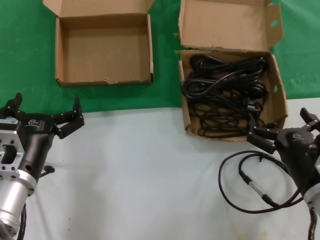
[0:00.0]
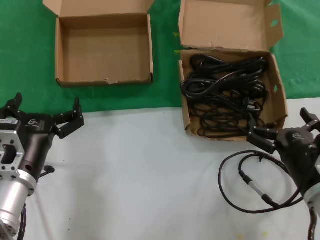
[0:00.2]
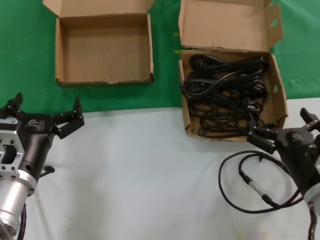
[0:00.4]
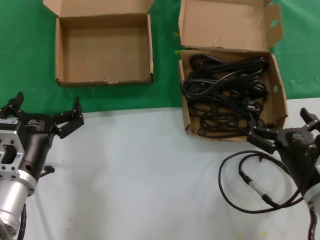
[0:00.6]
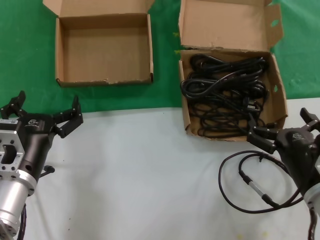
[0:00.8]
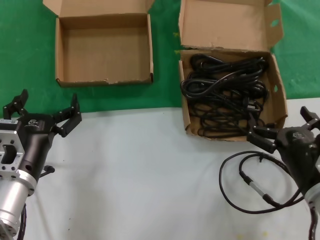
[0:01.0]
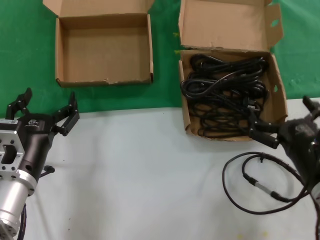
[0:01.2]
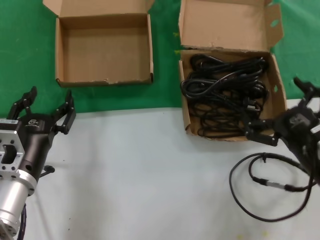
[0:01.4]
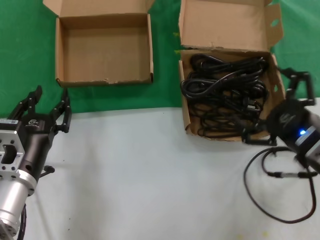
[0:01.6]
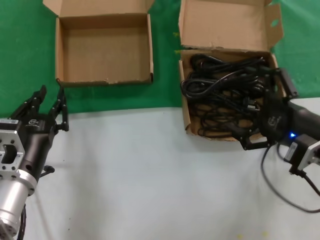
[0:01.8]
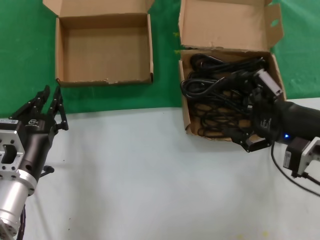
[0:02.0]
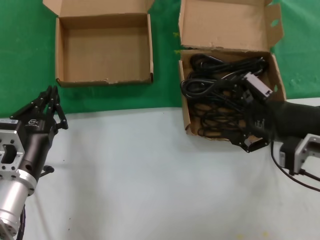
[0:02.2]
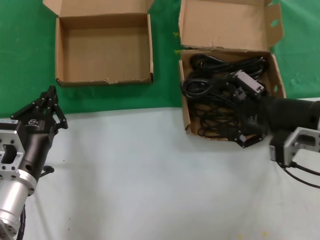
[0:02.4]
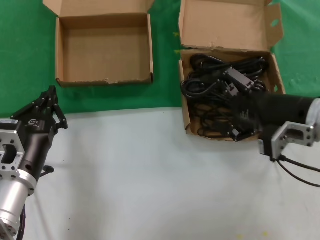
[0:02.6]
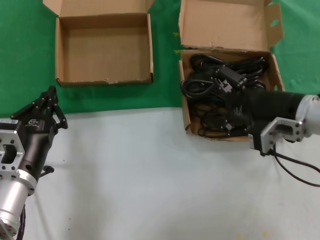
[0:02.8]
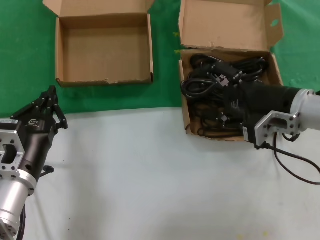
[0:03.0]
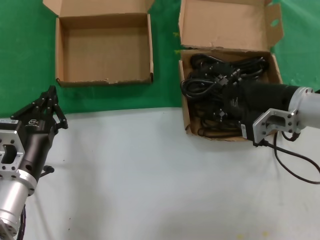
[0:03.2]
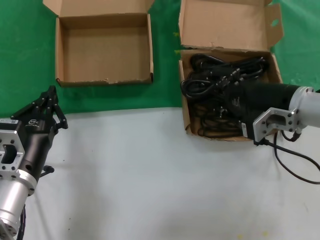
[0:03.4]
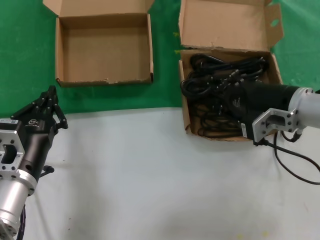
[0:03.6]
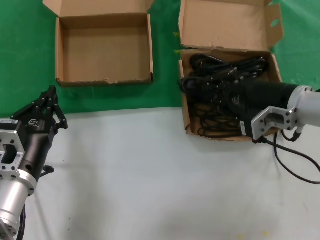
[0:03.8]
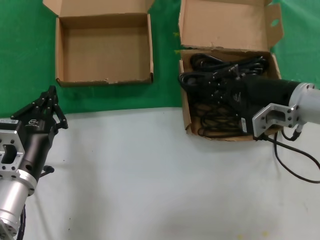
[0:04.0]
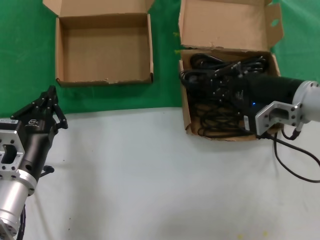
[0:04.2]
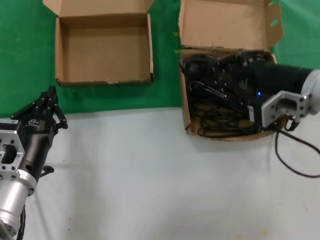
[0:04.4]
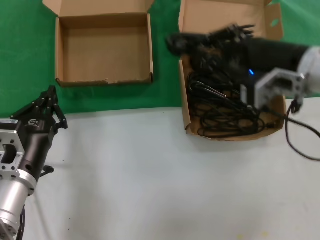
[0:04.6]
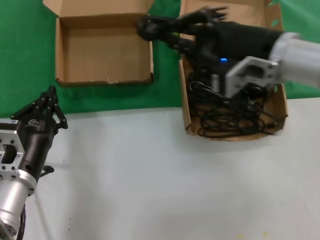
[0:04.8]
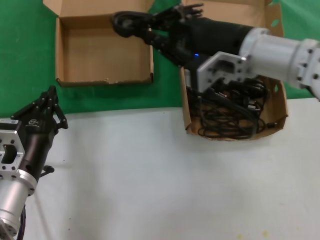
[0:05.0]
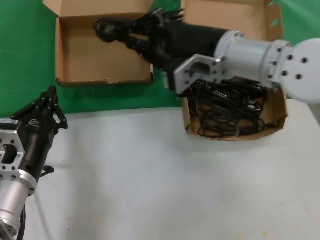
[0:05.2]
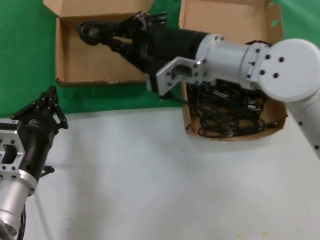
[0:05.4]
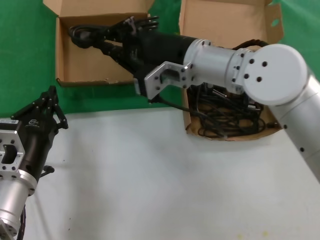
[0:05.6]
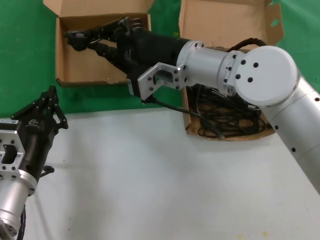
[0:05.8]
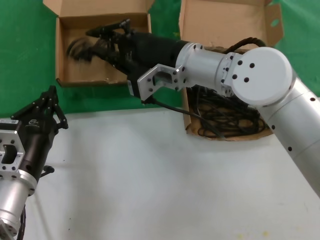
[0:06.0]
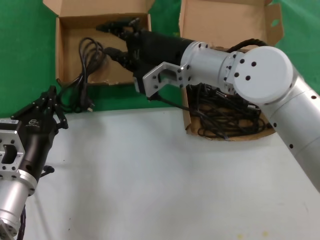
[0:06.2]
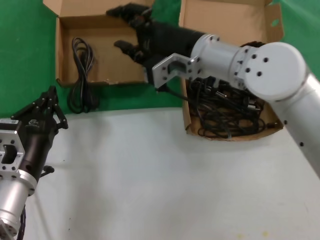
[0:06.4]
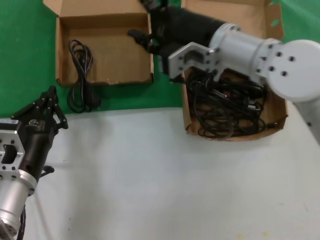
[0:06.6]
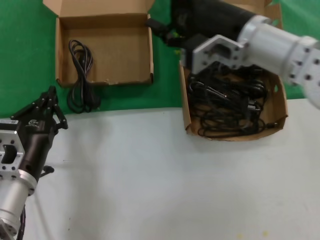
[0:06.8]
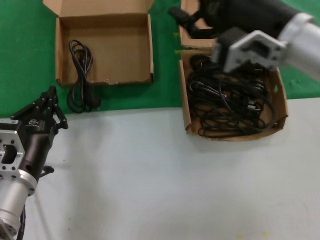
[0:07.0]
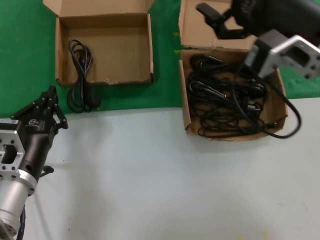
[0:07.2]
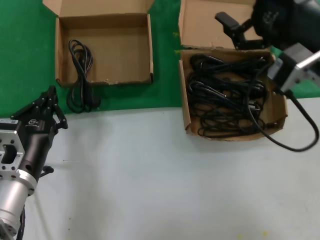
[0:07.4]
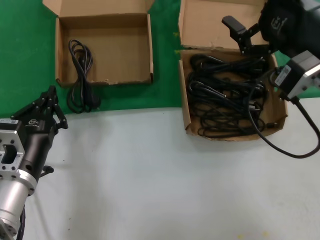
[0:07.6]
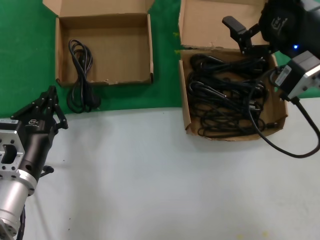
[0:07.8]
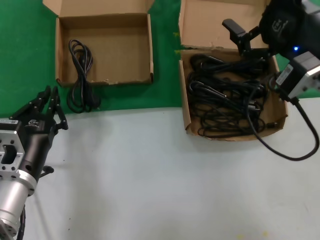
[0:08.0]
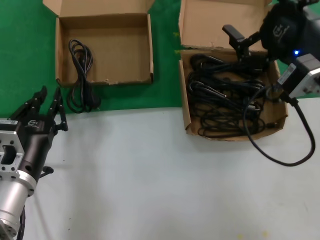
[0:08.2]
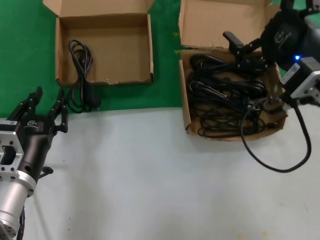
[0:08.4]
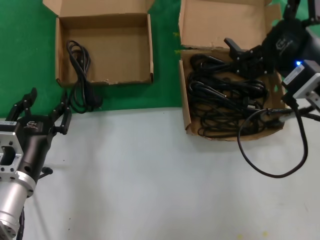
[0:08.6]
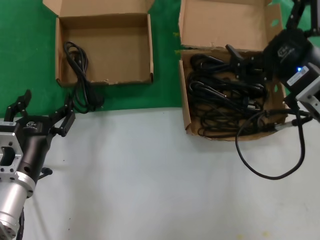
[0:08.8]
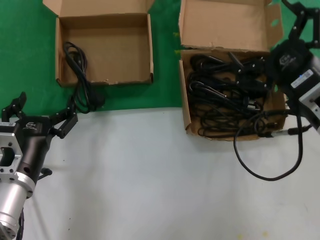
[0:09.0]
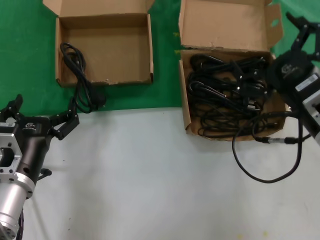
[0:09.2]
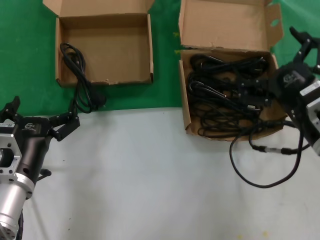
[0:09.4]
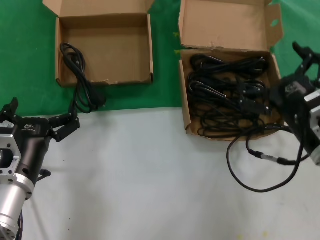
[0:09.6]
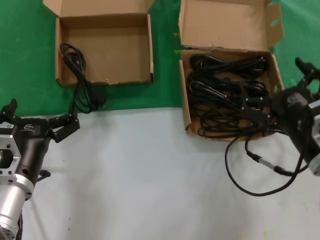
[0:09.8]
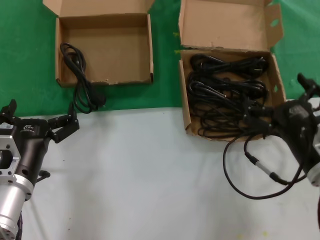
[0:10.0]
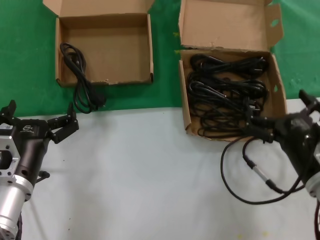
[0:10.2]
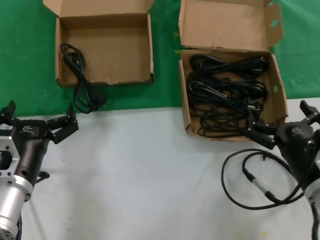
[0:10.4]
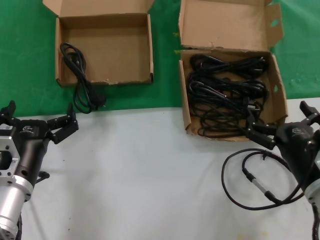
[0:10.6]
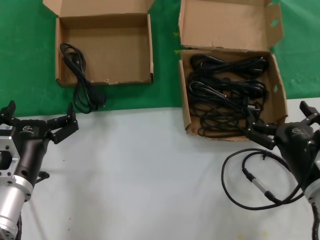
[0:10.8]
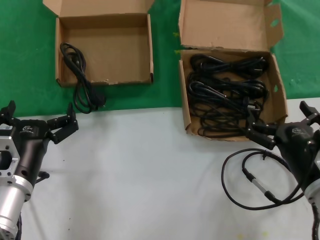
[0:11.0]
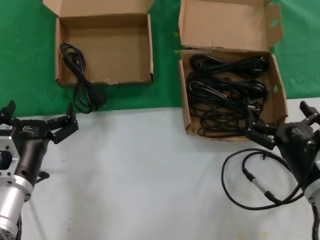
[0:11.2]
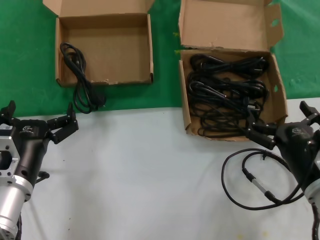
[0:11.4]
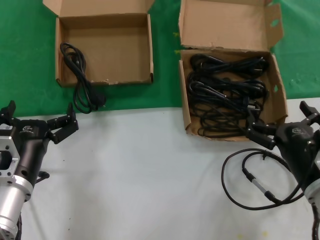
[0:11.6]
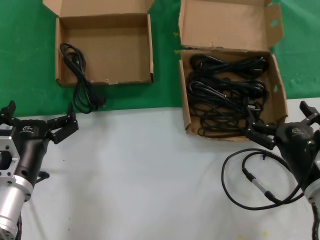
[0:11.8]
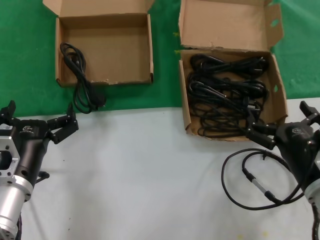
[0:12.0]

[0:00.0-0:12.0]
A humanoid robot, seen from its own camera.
Task of the whole recording: take the parts from the box containing them and put them into an empty box.
Step, 0.0 to 3.6 s: Grasp the data cable.
Step, 3.8 to 6.0 s: Place the data cable in the another box.
0.0 to 1.6 s: The right hand is displaced upward by approximately 5 cm.
1.6 to 3.0 s: The right hand heads forward and upward, covering roughly 15 cm.
3.0 to 4.4 s: The hands make only small movements.
4.4 to 6.0 s: The right hand travels to the left by about 20 cm.
6.0 to 7.6 s: The right hand heads to the right and backward, covering roughly 25 cm.
7.6 to 9.0 s: The right hand travels downward by approximately 10 cm.
9.0 to 10.4 s: The right hand travels downward by some 15 cm.
10.4 to 12.0 s: Neither hand changes place.

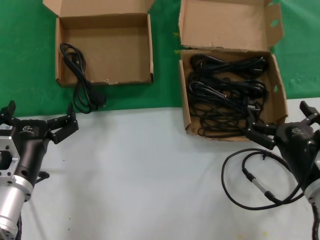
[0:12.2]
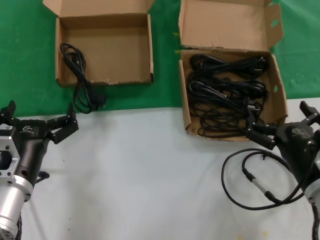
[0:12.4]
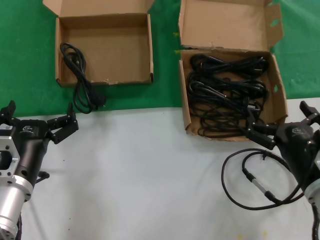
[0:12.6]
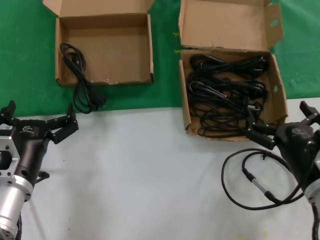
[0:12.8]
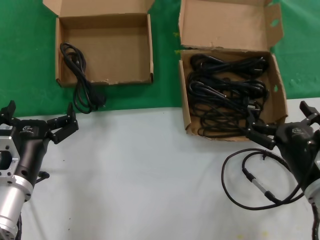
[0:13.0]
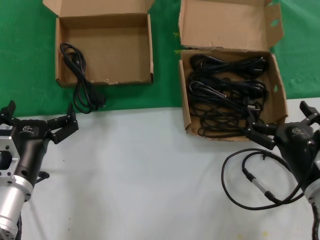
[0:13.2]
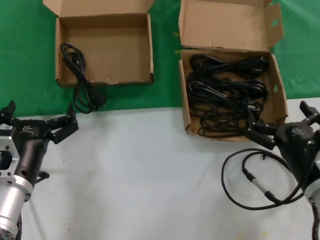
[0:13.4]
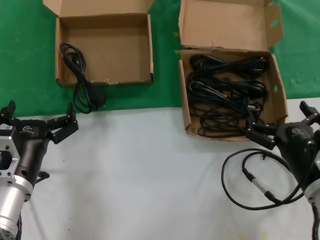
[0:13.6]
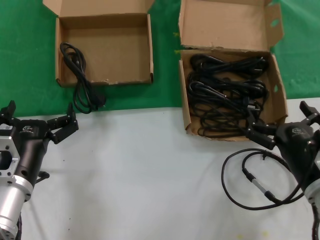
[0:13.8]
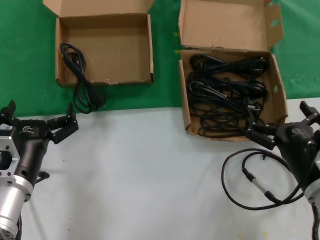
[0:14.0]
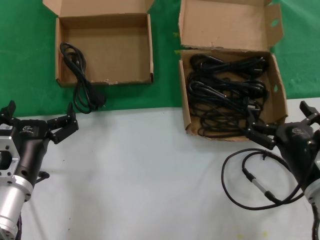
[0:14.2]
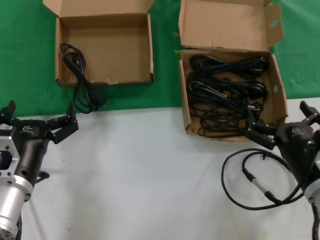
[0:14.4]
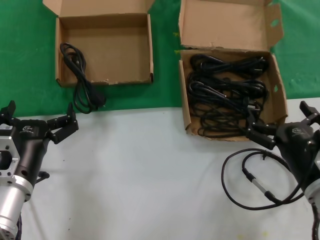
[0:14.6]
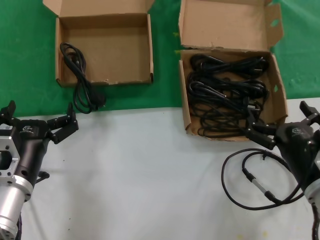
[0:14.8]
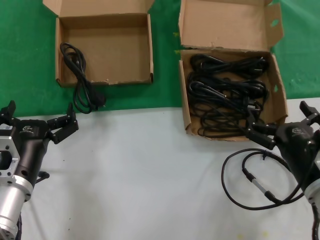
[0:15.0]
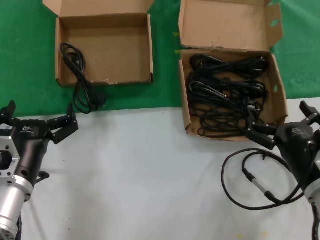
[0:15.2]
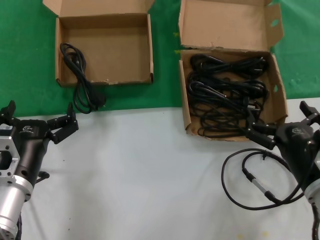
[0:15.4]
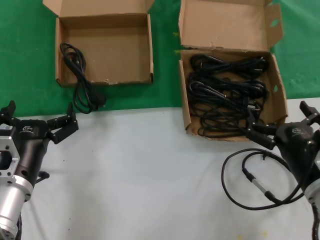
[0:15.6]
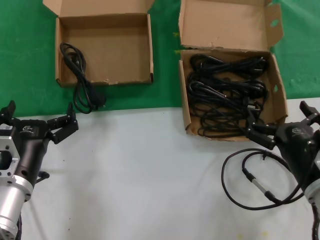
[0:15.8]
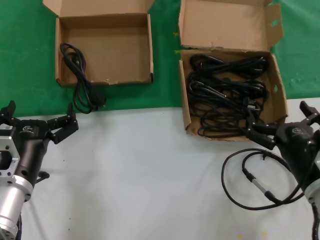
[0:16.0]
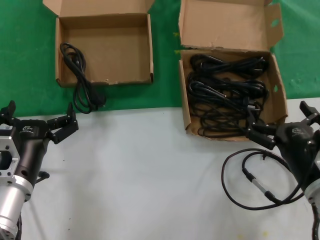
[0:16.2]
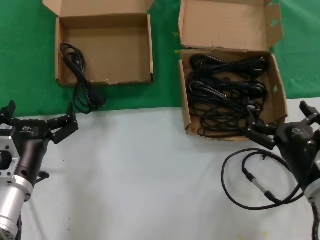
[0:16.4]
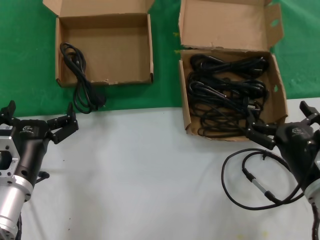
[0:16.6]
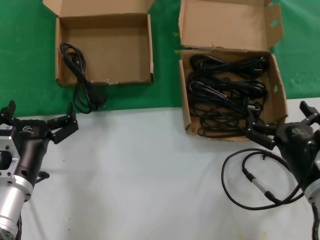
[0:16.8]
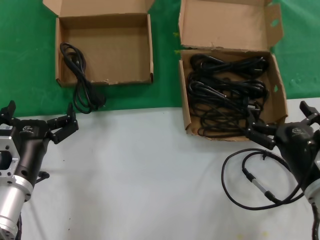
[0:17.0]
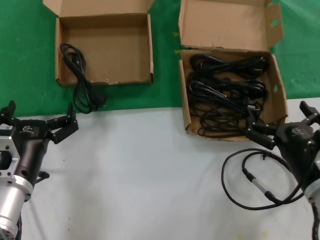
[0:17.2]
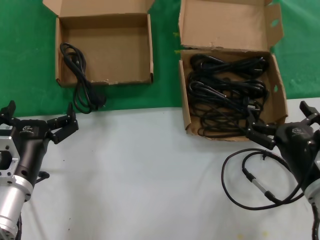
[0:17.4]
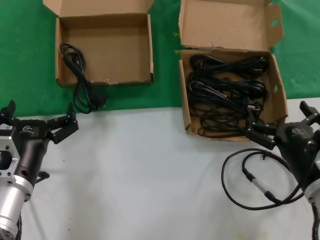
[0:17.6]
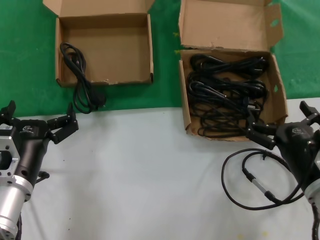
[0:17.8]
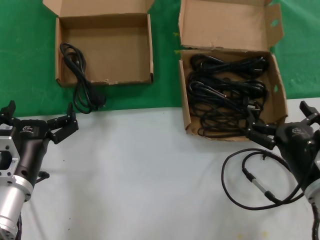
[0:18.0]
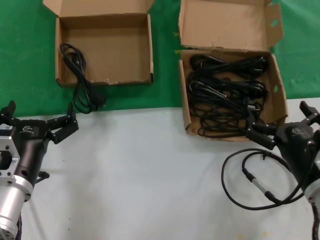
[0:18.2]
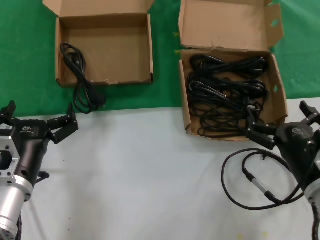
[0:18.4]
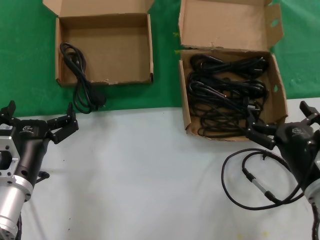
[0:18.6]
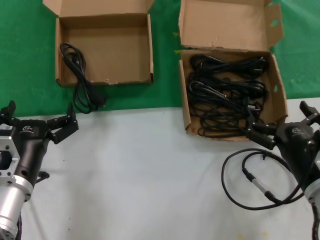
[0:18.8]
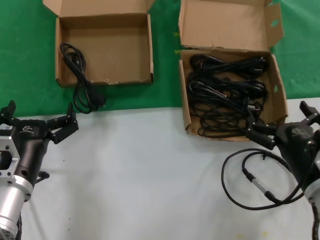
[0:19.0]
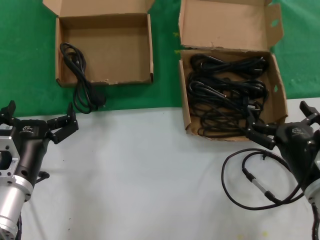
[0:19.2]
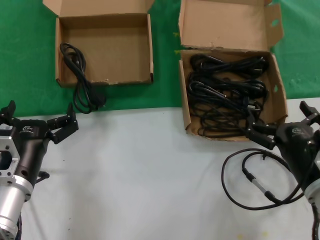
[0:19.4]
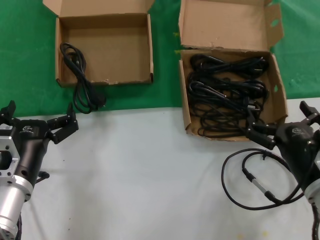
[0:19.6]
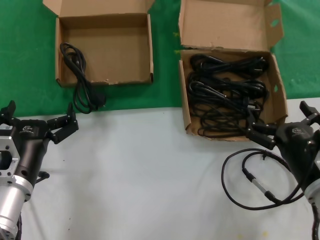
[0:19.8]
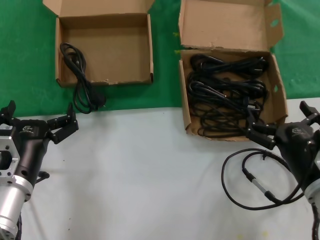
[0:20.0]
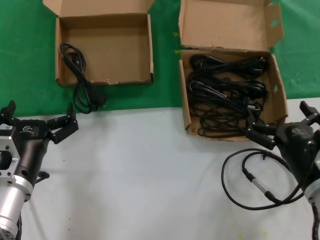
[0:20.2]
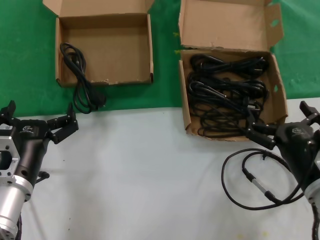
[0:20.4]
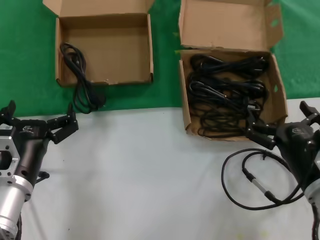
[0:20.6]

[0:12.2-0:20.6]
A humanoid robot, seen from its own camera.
Task of the whole recording: take the parts from the box containing them and put them into an empty box.
12.2 to 20.6 s: Both hands stay about where they are.

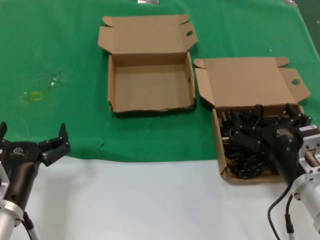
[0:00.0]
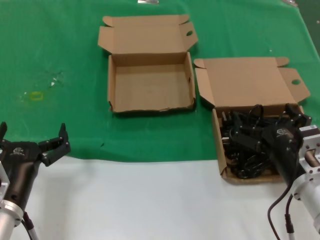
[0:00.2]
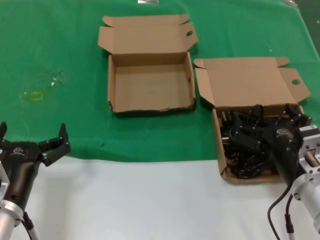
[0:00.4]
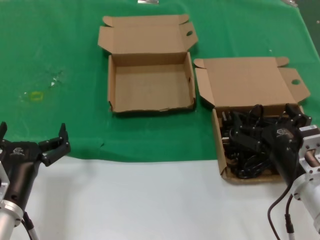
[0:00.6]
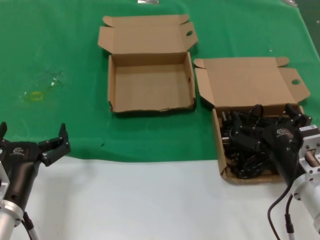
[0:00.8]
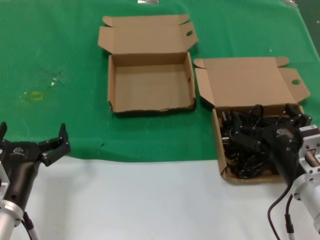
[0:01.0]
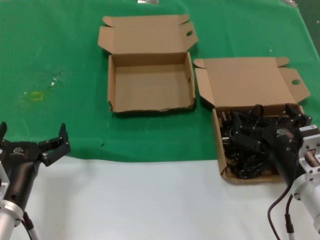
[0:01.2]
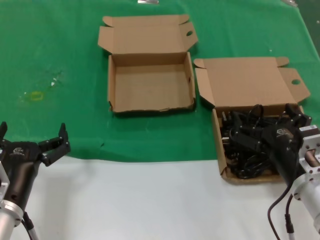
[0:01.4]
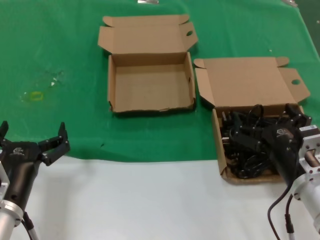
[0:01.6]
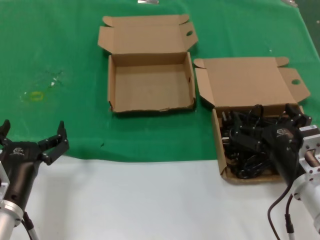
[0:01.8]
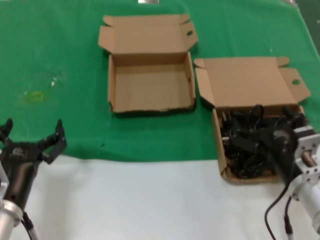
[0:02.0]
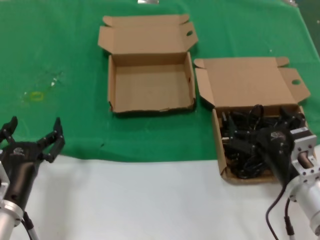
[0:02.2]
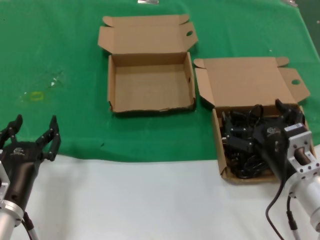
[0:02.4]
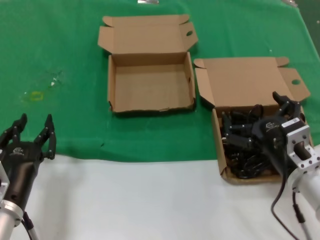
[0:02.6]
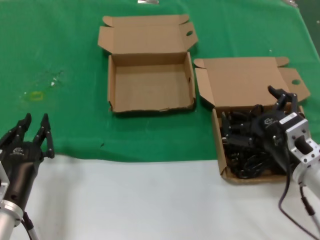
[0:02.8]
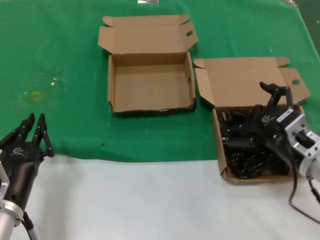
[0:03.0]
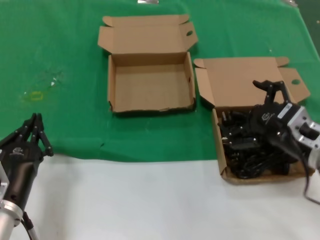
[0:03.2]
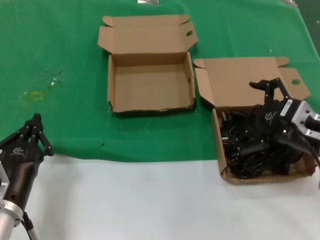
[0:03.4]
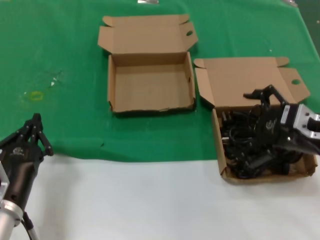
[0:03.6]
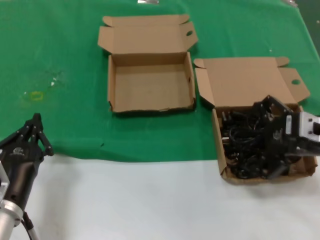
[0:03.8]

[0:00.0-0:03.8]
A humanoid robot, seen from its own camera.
Task of the whole recording: take the parts from the box containing them and put them into an empty box.
0.0 to 1.2 s: Both hands stay about where they are.
1.2 to 2.6 s: There are only small adjustments of the hands.
2.6 to 3.8 s: The right hand is displaced upward and to the right by approximately 15 cm.
